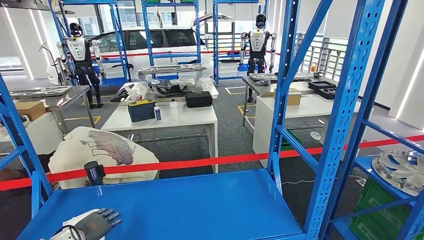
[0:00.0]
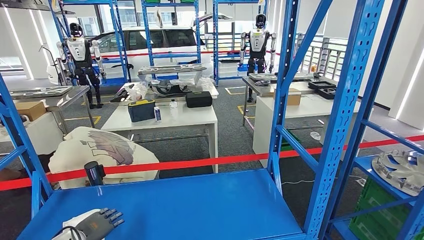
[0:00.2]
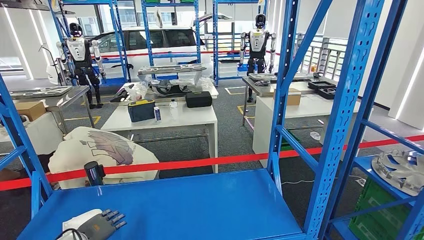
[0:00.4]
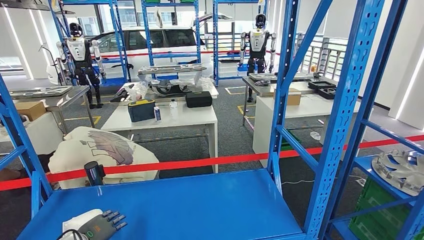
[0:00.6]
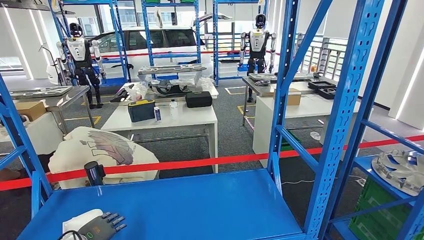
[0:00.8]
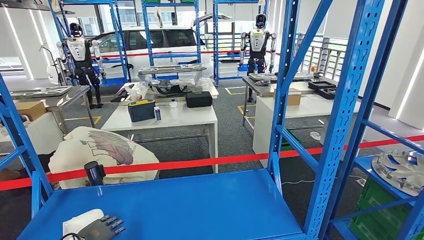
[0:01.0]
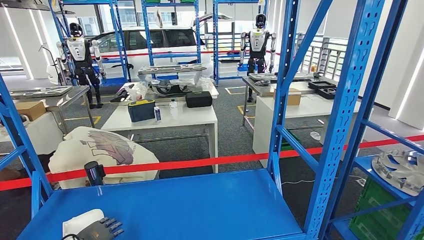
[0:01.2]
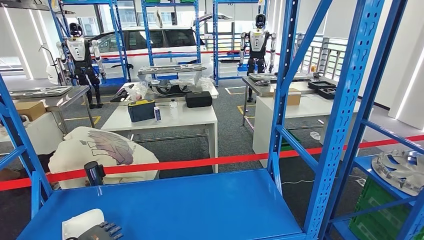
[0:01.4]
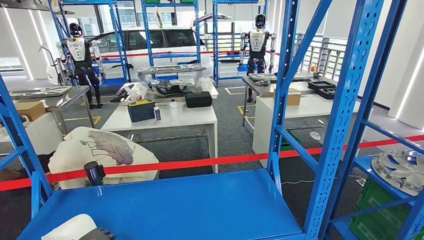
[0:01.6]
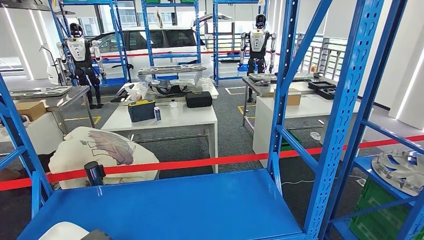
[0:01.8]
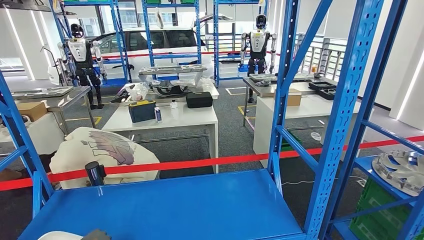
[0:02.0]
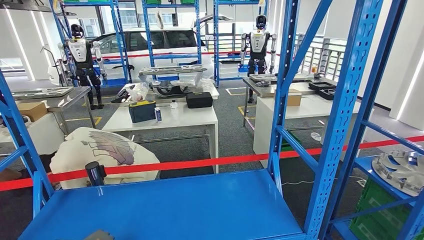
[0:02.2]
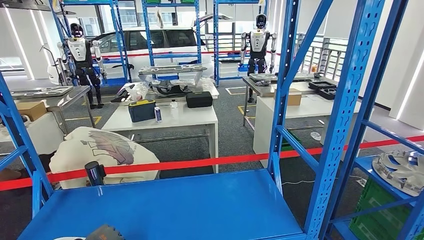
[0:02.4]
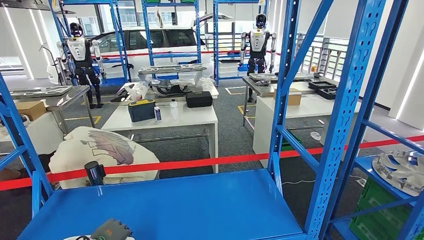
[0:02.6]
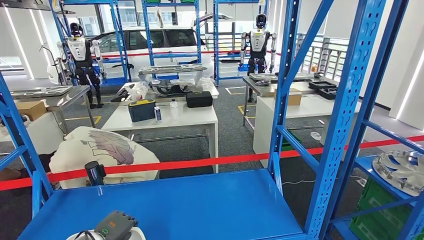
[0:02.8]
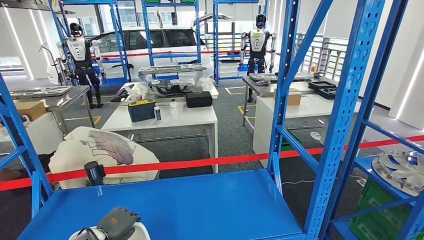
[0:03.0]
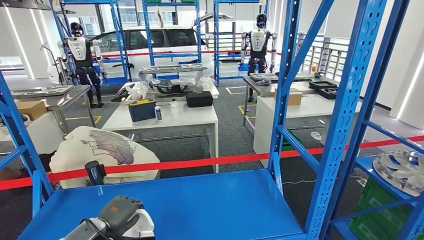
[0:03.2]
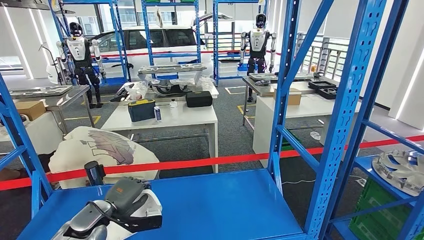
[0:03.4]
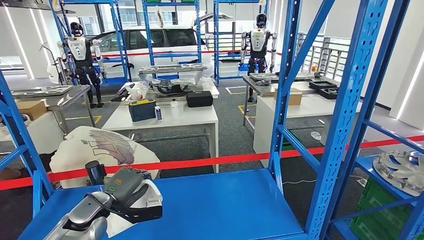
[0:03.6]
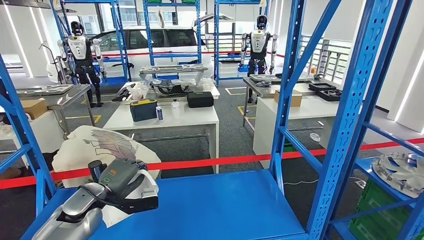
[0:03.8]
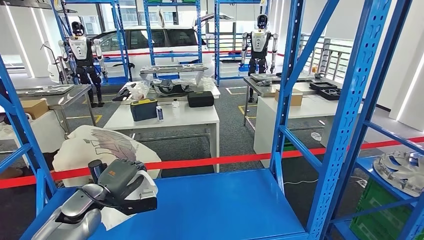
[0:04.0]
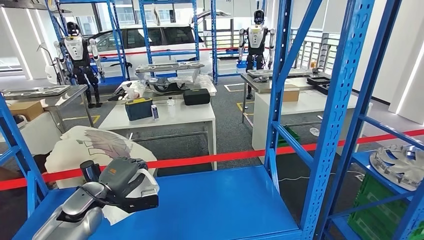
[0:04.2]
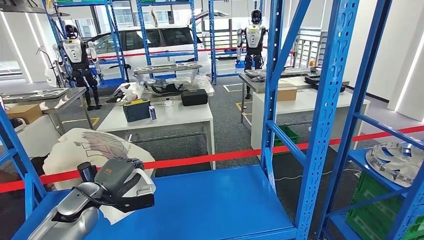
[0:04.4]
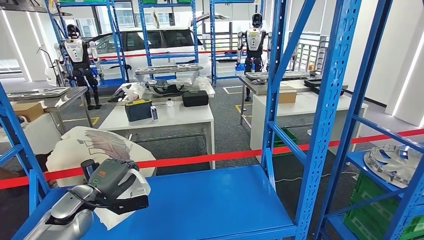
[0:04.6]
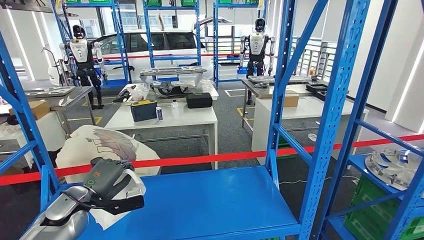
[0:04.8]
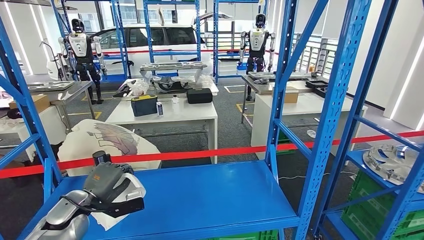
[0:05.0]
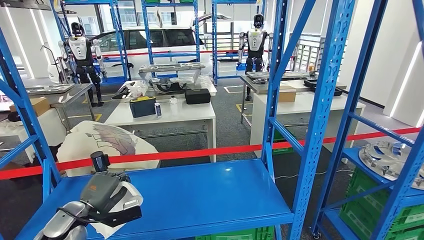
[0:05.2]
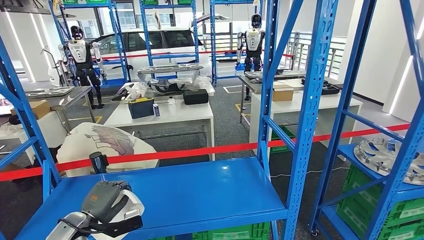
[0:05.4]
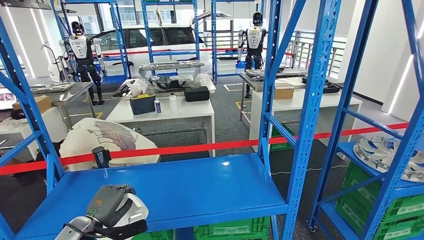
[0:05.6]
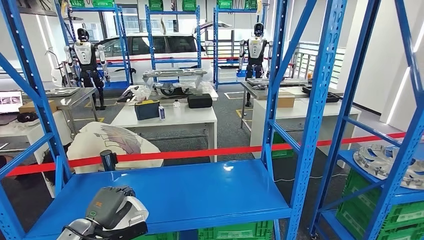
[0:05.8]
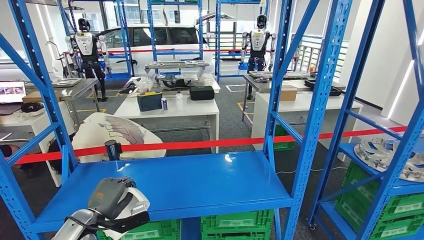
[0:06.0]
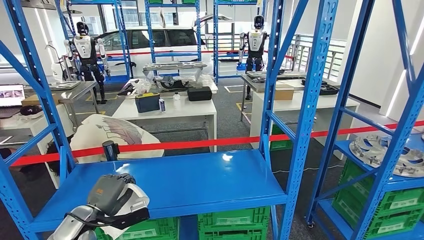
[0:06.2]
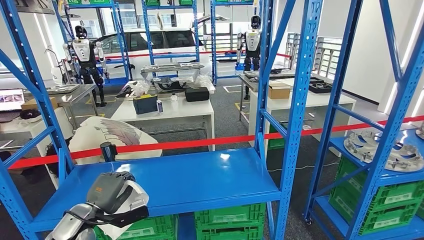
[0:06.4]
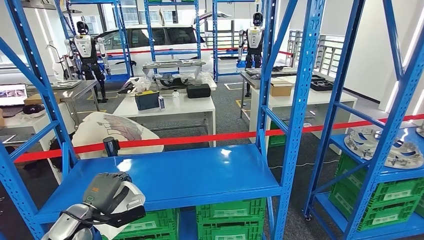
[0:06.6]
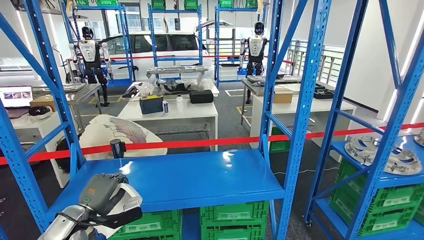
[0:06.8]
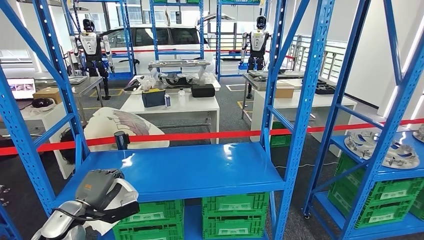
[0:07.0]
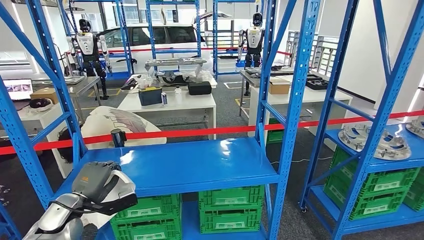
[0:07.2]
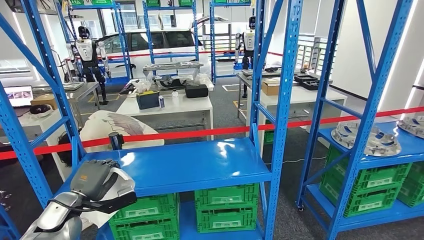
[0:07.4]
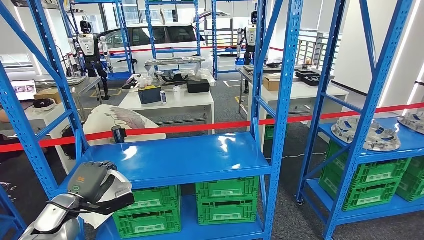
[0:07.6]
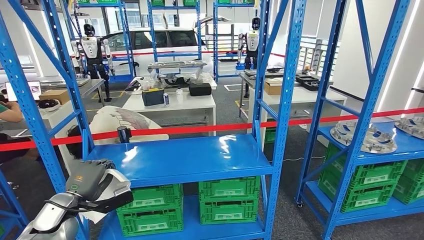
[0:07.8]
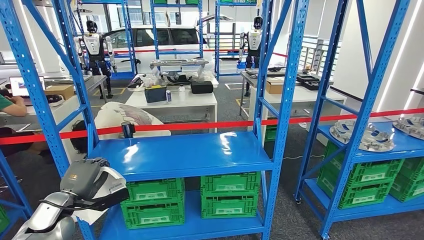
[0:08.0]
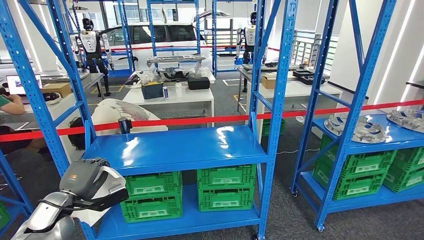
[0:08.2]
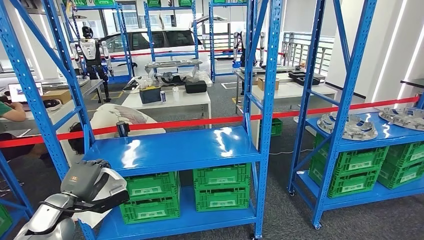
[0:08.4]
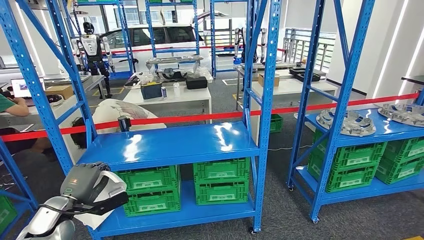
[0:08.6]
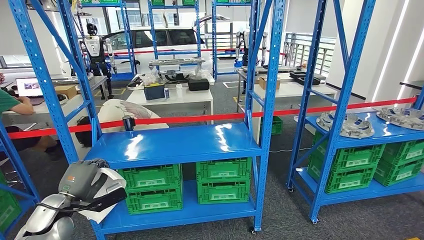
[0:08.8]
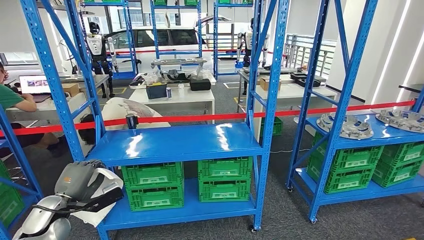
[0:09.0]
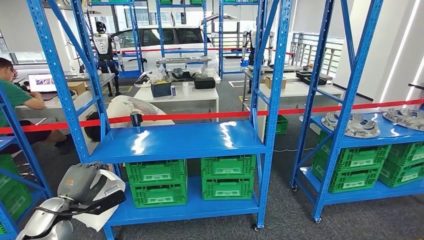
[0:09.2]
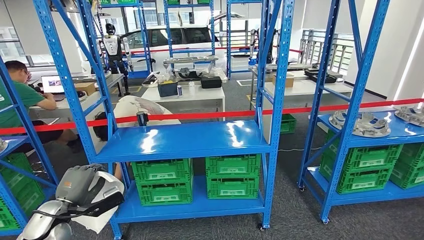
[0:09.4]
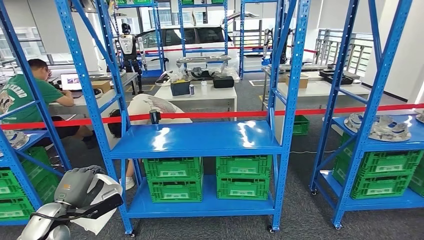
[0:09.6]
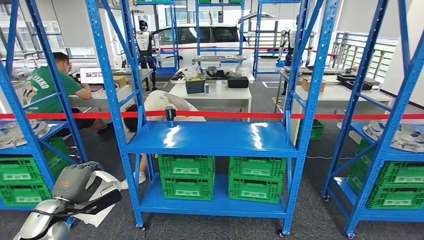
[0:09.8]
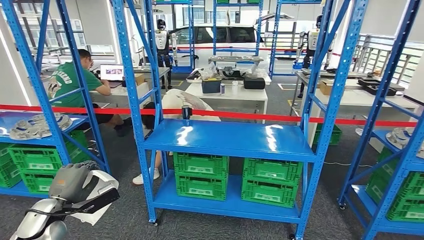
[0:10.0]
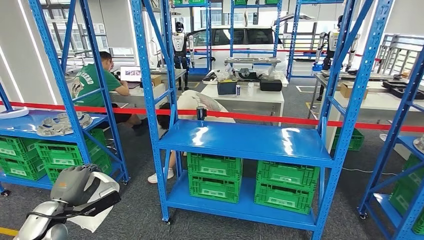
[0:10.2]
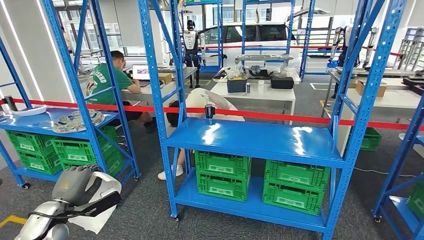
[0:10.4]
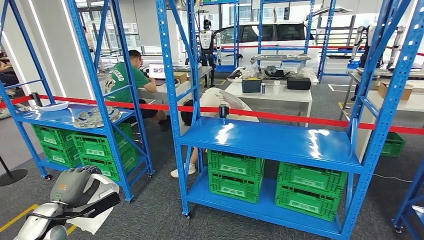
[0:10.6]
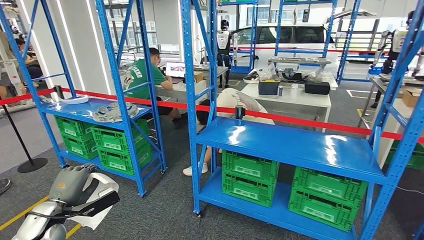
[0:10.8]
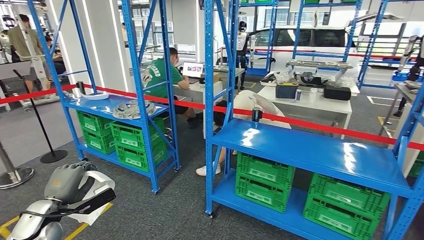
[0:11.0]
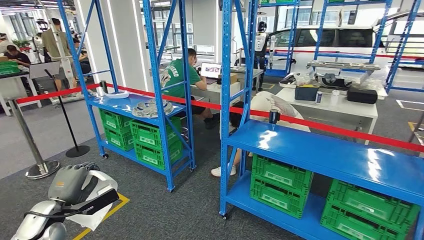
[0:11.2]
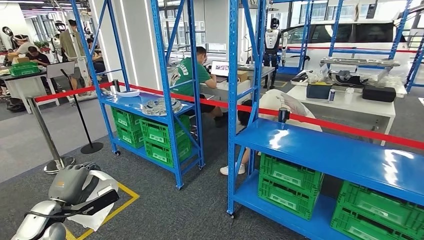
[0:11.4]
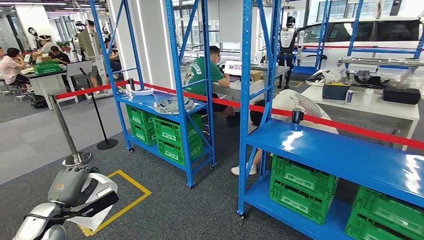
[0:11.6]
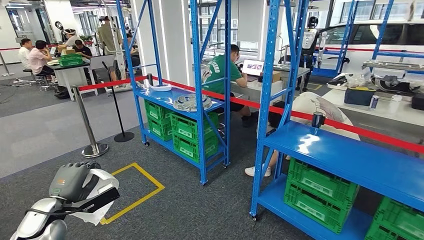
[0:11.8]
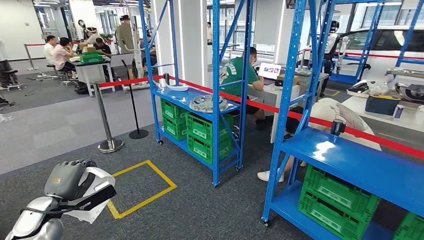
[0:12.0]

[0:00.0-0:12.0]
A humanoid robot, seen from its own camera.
Step, 0:00.0 to 0:03.6: Pick up the small component from the shelf.
0:00.0 to 0:01.6: There are only small adjustments of the hands.
0:01.6 to 0:03.0: The left hand is displaced to the right by some 5 cm.

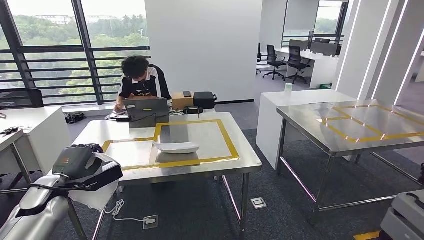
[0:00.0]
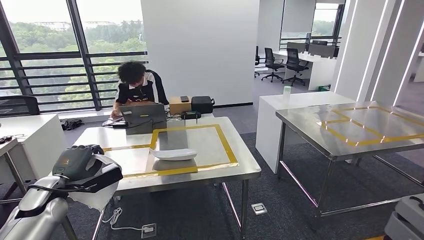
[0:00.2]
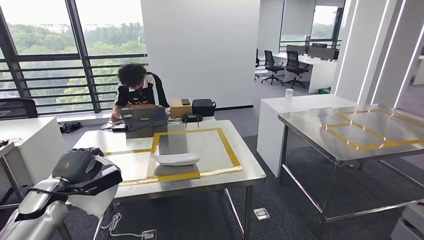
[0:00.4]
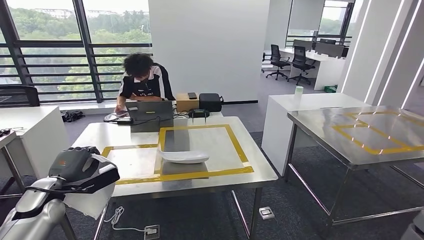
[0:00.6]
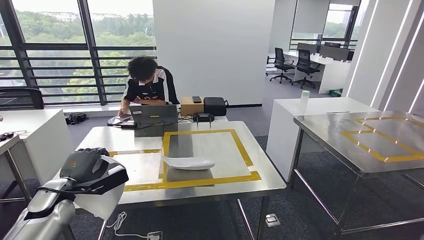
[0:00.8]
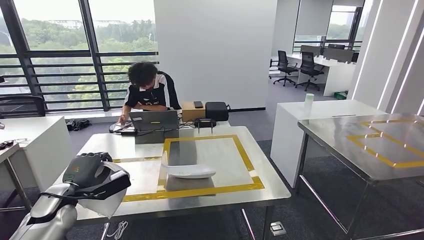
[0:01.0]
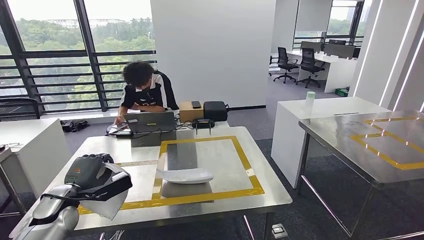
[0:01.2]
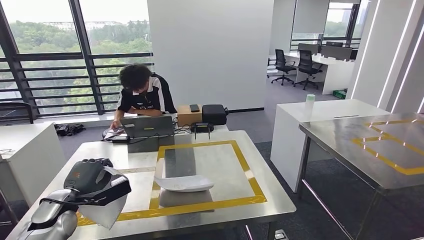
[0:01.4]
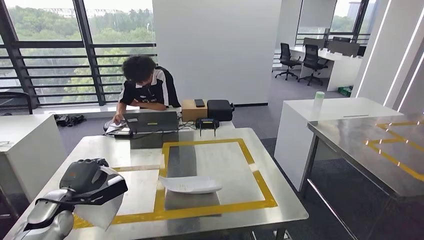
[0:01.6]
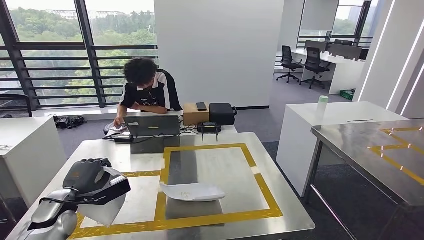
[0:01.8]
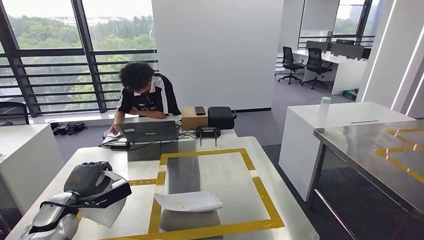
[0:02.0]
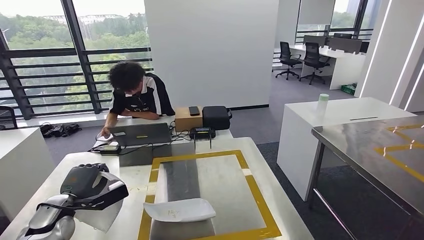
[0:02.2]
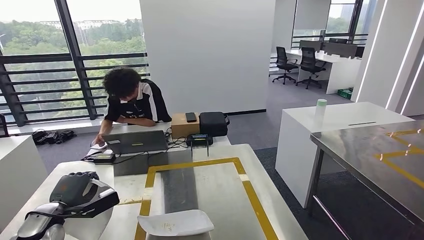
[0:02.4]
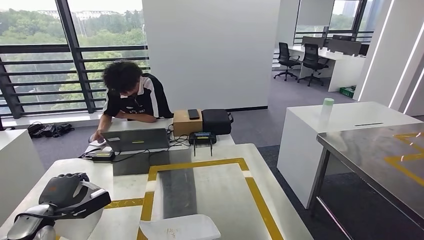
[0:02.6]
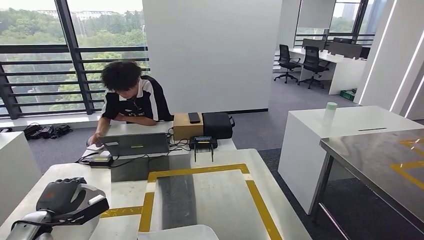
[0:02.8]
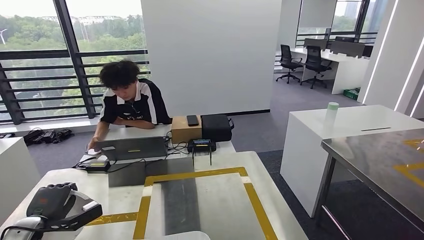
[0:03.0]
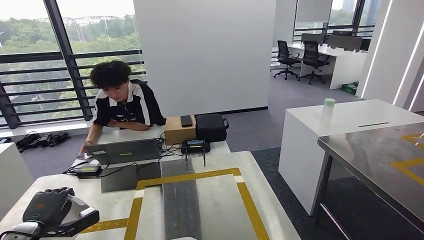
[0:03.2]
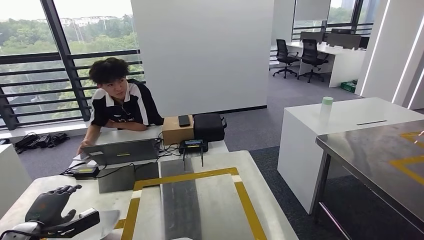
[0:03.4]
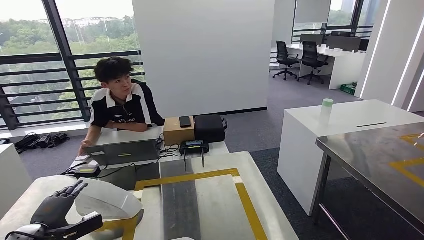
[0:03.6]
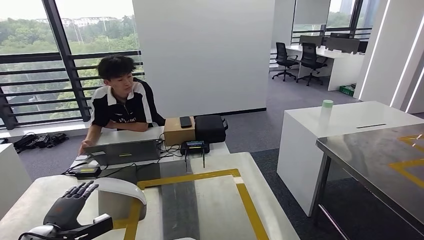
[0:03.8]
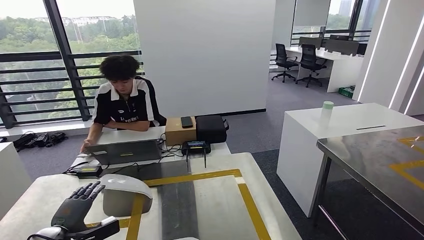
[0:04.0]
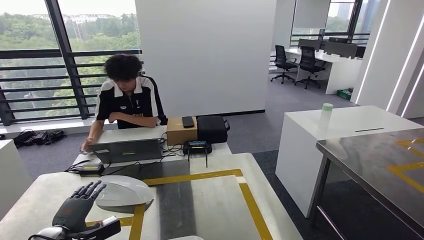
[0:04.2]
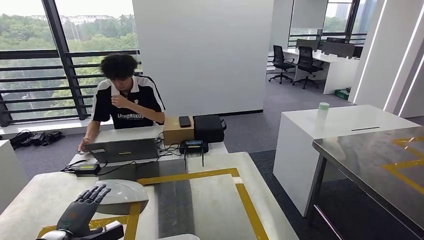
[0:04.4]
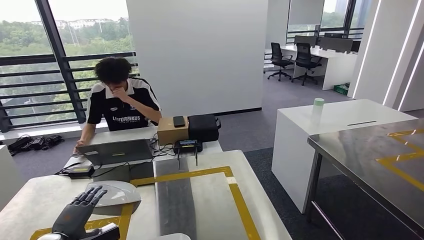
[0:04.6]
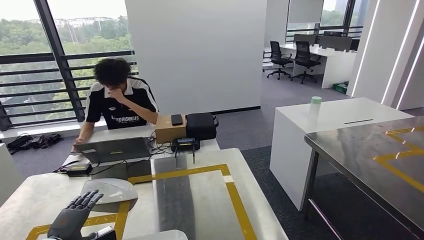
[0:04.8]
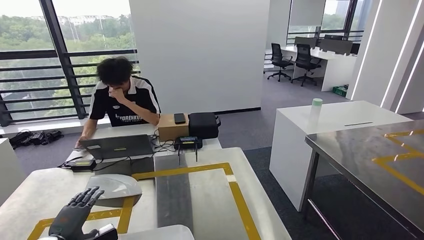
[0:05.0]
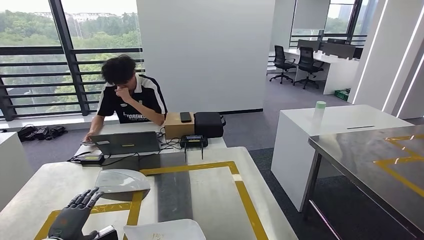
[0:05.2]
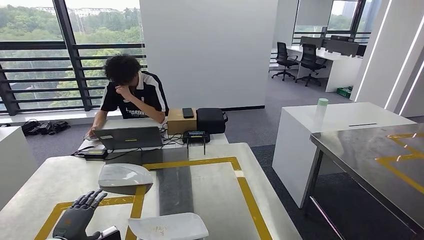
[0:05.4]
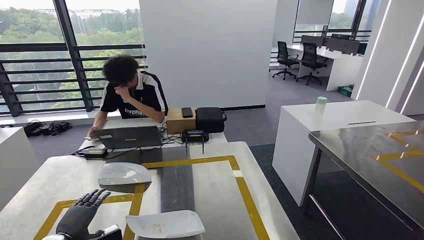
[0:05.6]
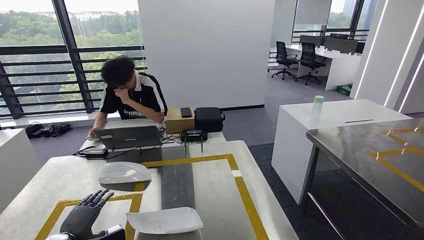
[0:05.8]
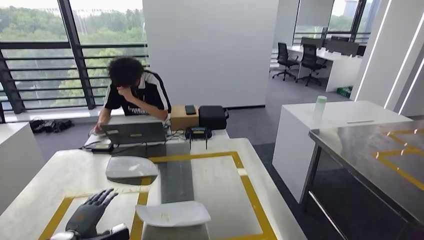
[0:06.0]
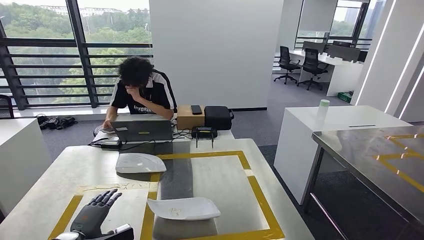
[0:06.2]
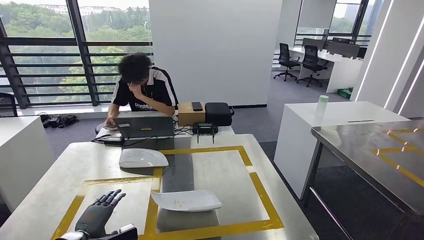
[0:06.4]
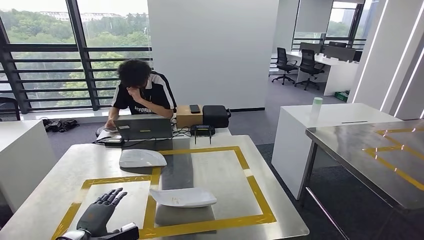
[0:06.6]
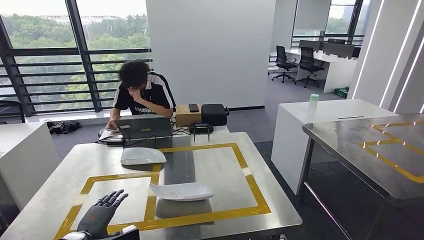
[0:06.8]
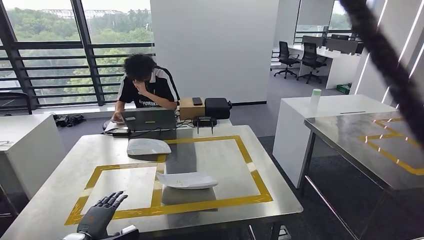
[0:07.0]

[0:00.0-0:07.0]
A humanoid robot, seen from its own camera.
Step, 0:01.8 to 0:04.2: Insert the small component into the corresponding slot on the workbench.
